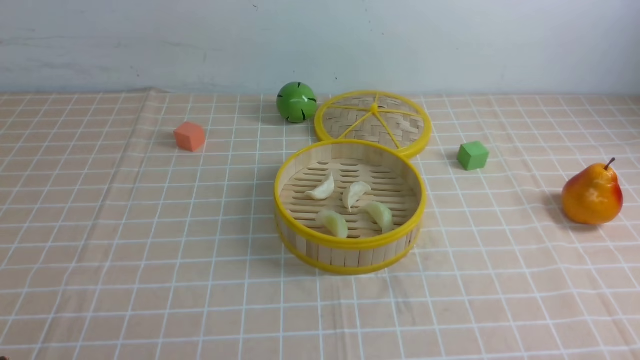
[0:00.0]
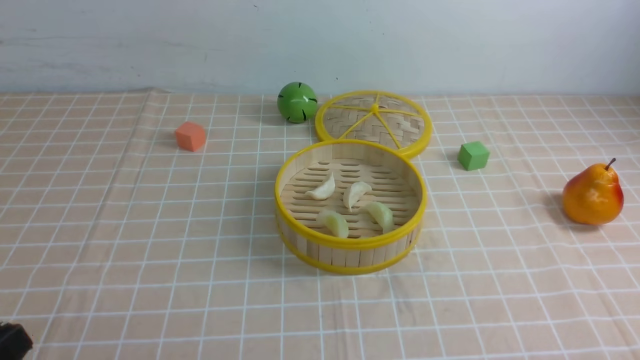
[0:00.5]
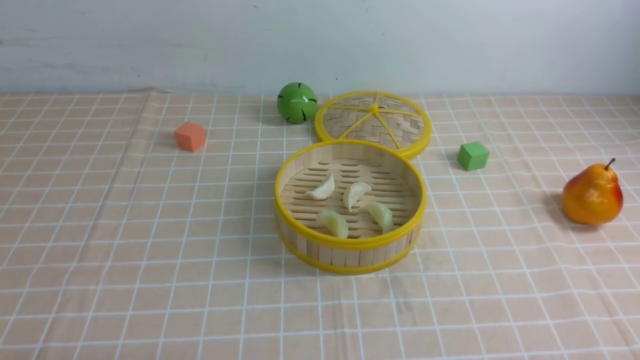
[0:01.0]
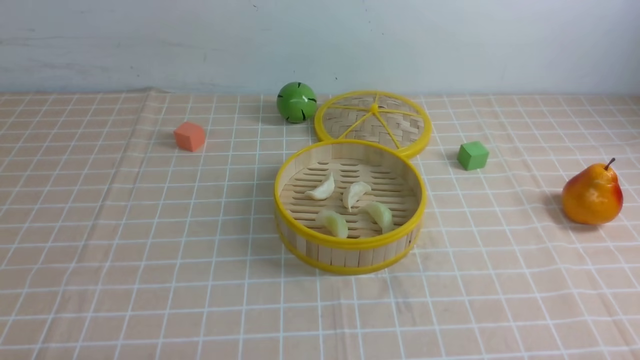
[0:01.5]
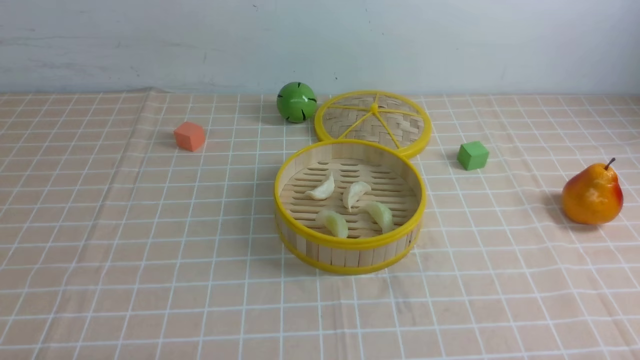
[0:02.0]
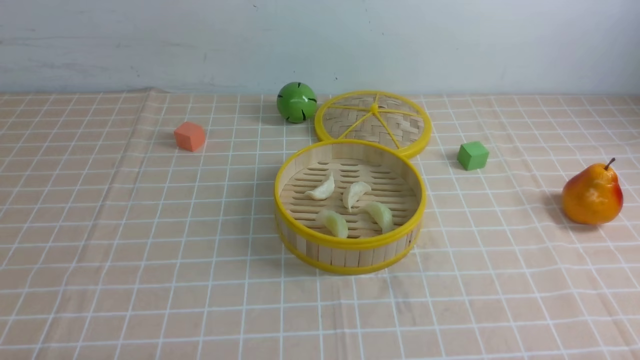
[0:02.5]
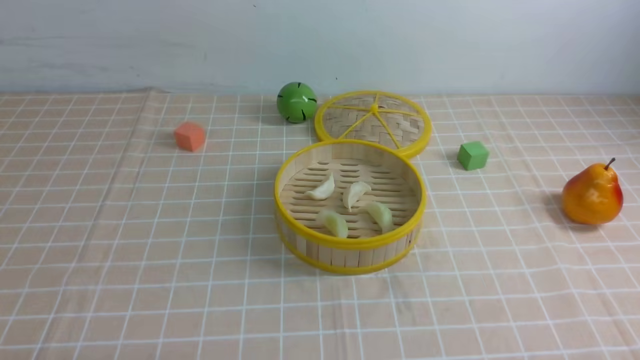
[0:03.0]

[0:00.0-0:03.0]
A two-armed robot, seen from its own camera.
Task of the whole recording: put the dumplings into the steamer on the table with the brown tablecloth.
0:01.5 to 0:03.0: Both grippers stay about where they are.

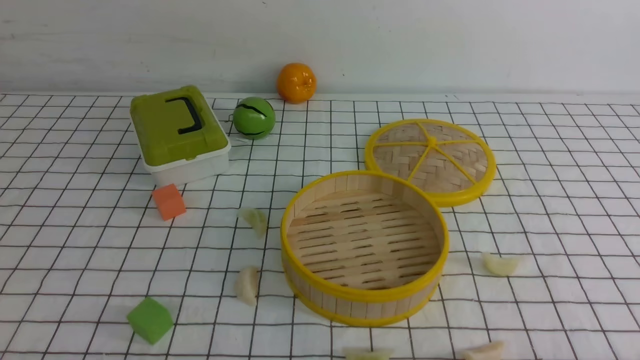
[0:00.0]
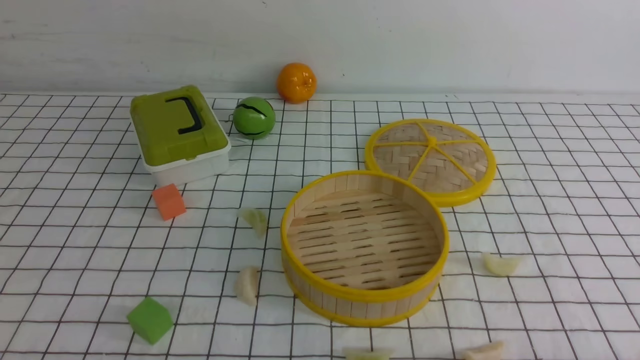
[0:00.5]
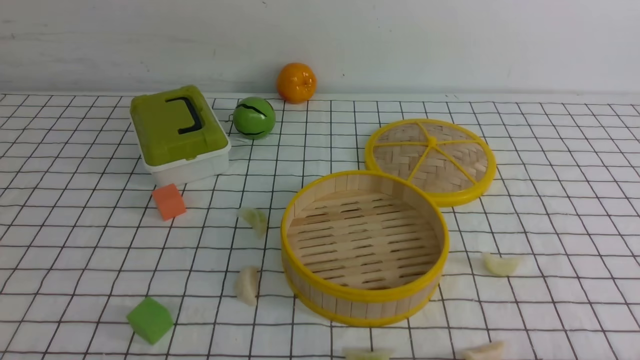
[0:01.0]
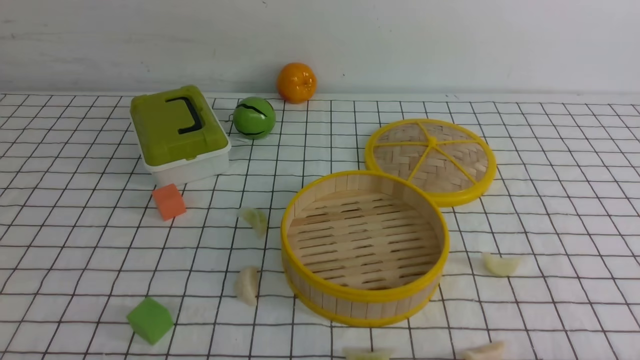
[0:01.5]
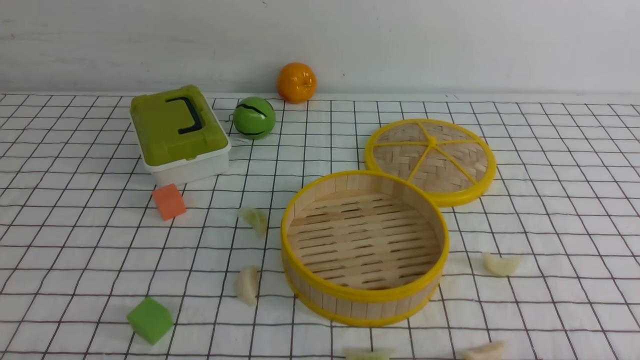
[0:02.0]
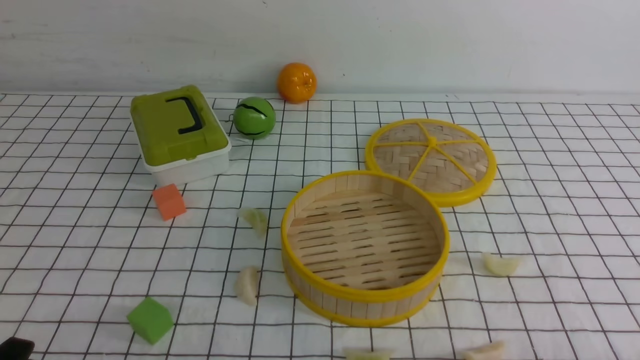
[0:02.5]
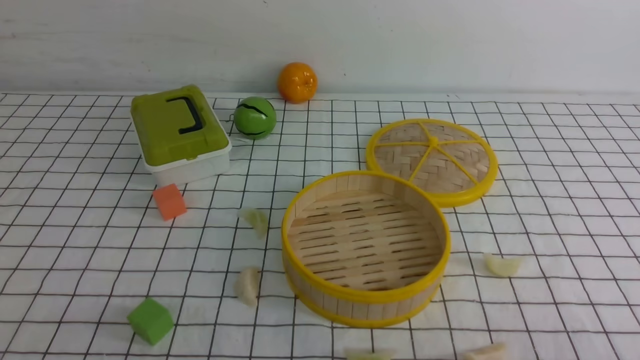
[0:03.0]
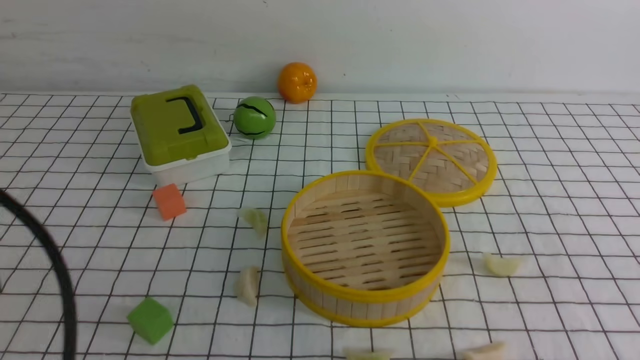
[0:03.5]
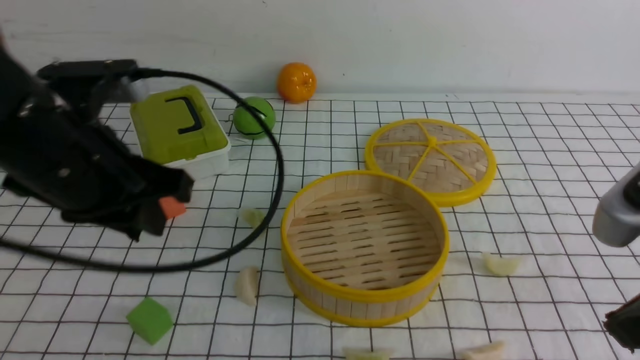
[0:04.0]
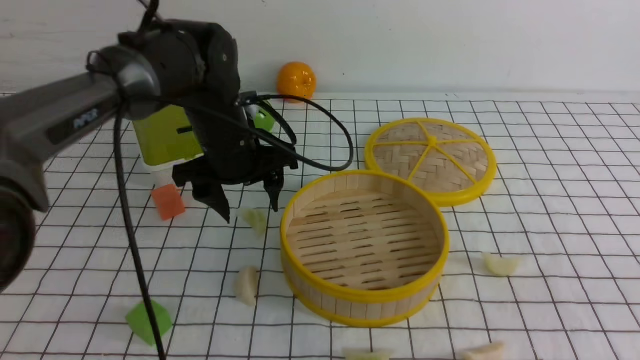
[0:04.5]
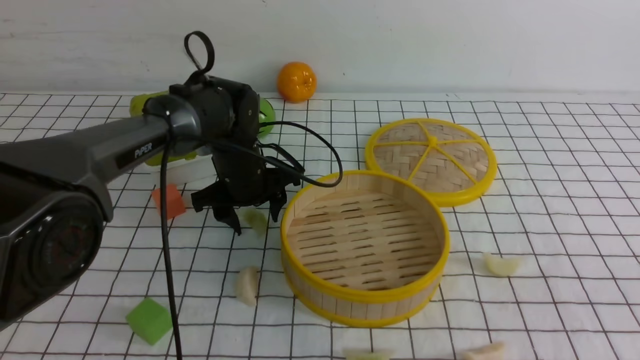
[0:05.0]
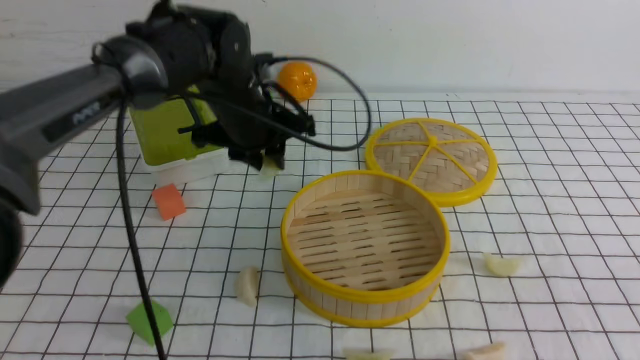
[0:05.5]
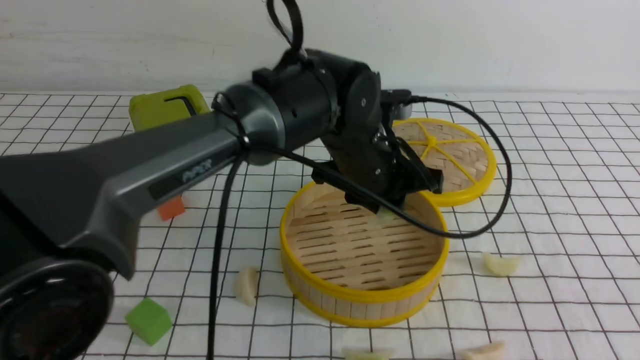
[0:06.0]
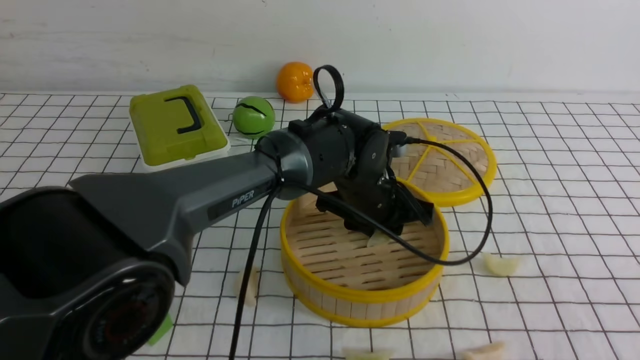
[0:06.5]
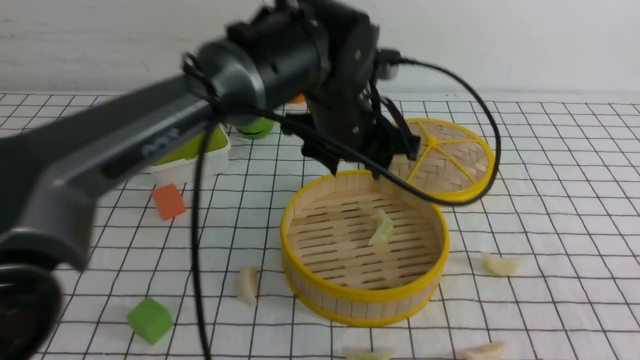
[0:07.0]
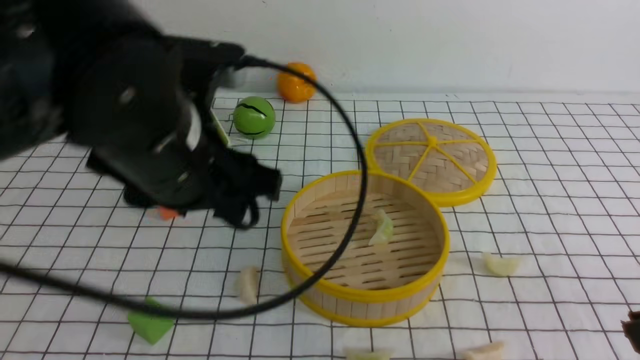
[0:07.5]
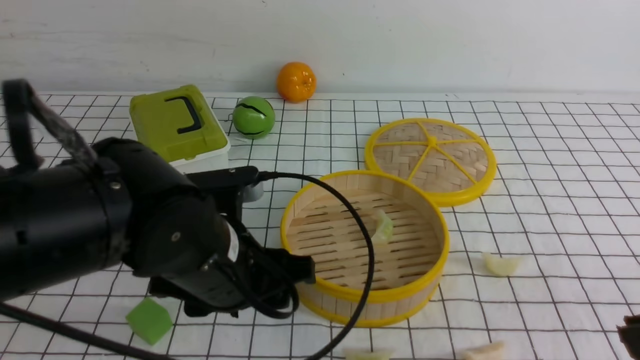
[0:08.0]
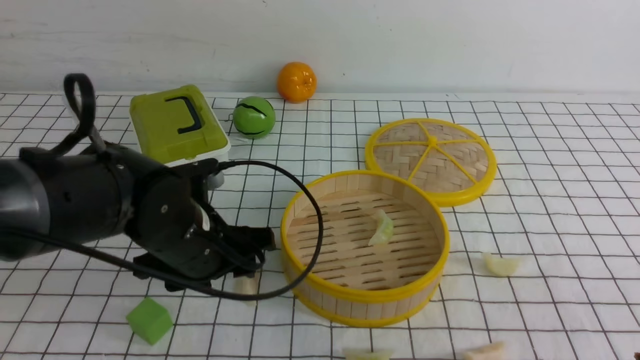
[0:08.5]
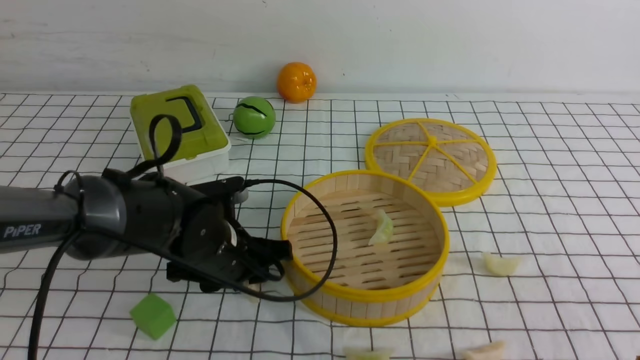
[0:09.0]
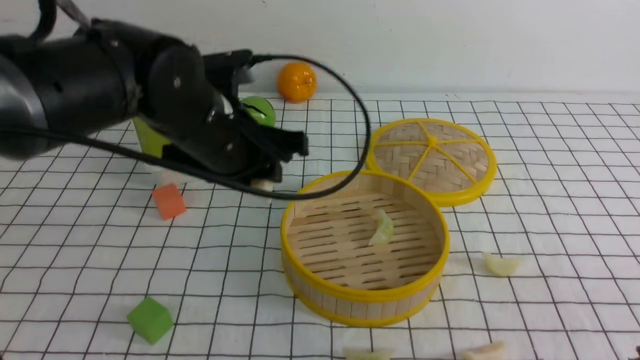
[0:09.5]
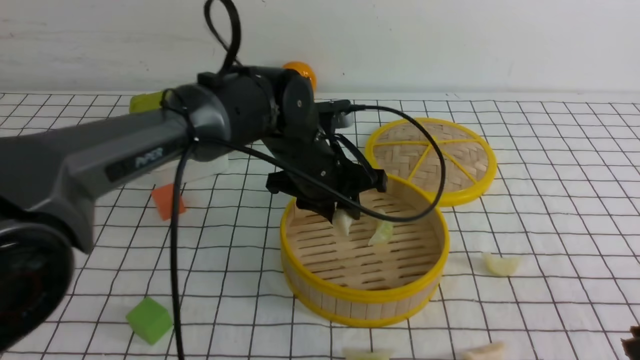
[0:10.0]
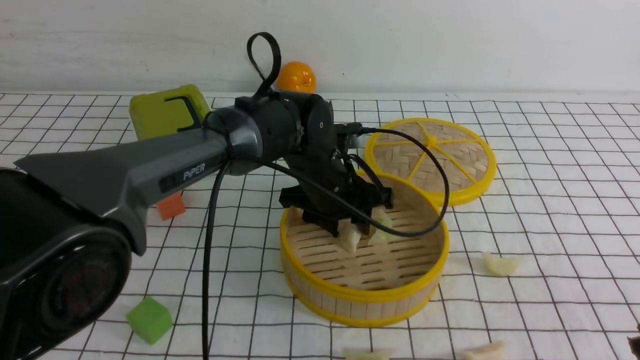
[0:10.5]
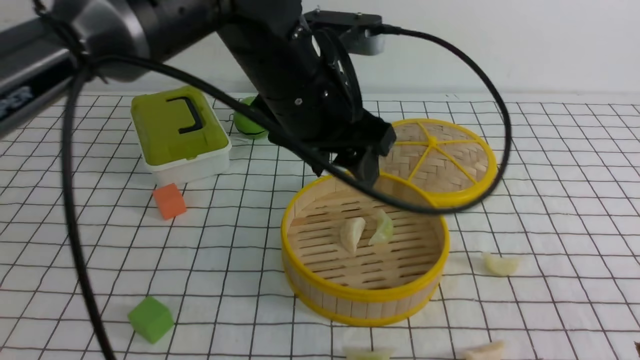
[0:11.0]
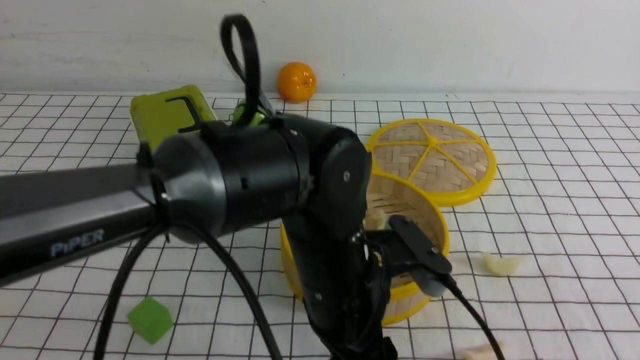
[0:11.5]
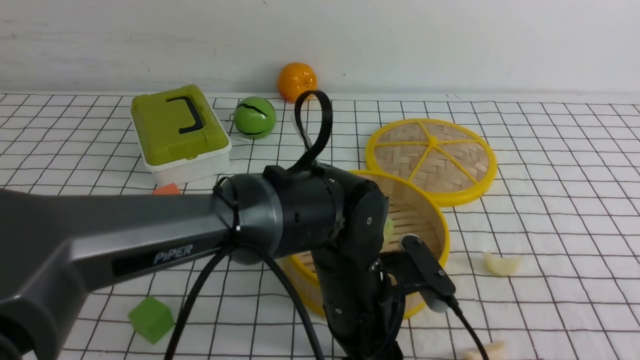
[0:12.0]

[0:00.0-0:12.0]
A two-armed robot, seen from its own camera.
Task of the whole recording: put the dumplings into the steamer on the table with the white tablecloth.
Step, 0:00.0 to 0:05.5: use the left arm to grab a dumpling.
Step, 0:06.0 to 0:06.5: use the left arm to put the dumpling into the steamer.
Step, 0:07.0 to 0:09.0: use the left arm to grab a dumpling.
Step, 0:10.0 to 0:10.5: use the left arm to put the dumpling into the steamer.
0:02.0 to 0:04.0: The left gripper goes about 25 cm upward, forward and to the right, while the right gripper heads upward, forward and to the left, covering some 20 cm, and closes.
0:04.0 to 0:06.0: The left gripper moves to the right and forward, roughly 25 cm, and opens and closes again. Meanwhile the right gripper shifts about 5 cm backward.
0:06.0 to 0:08.0: The left gripper goes up and down, some 15 cm each way, reversing 2 times, and opens up.
0:08.0 to 0:10.0: The left gripper heads forward and to the right, covering about 15 cm.
0:10.0 to 0:12.0: The left gripper is displaced backward, downward and to the right by roughly 15 cm.

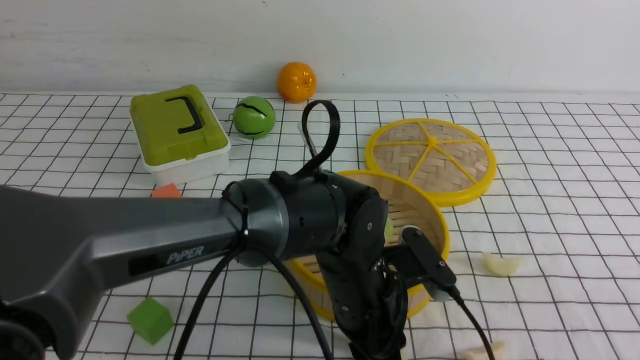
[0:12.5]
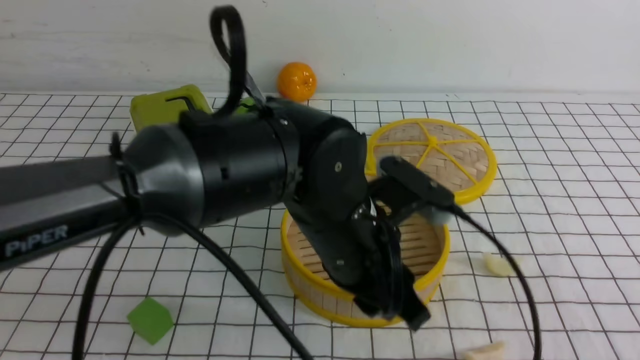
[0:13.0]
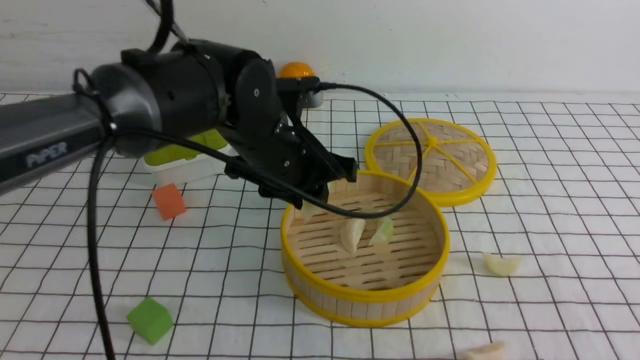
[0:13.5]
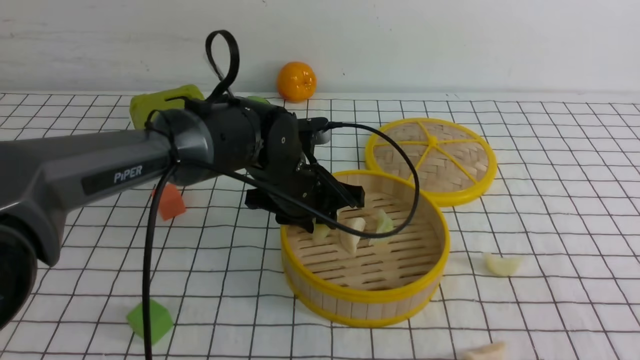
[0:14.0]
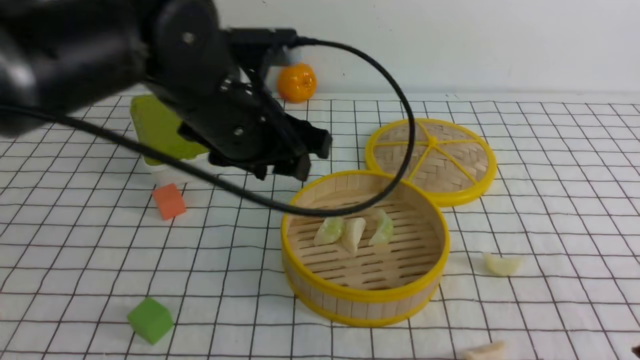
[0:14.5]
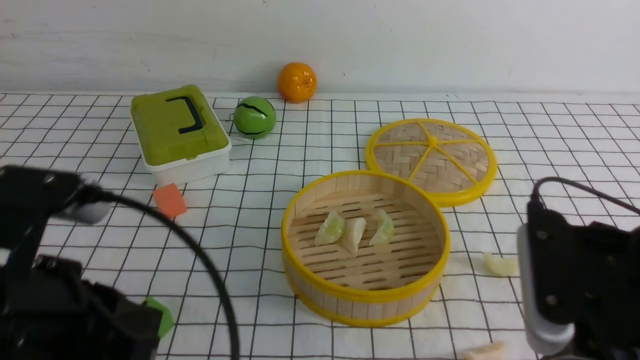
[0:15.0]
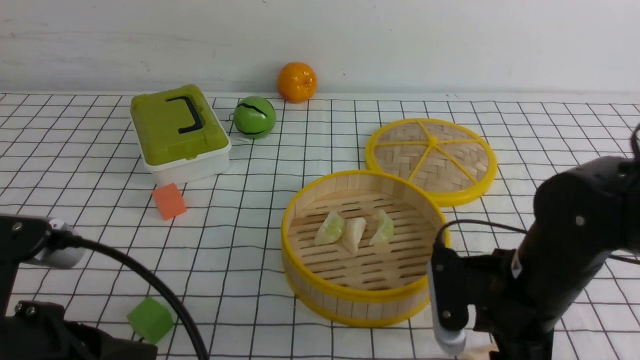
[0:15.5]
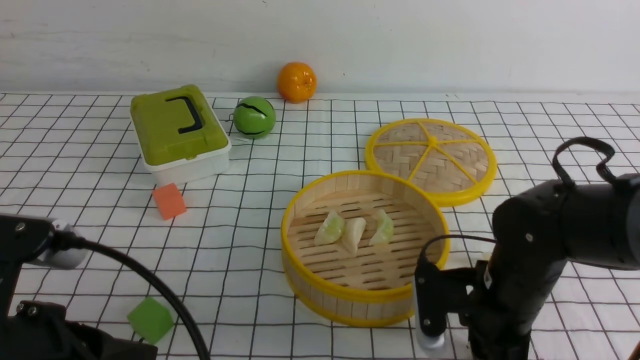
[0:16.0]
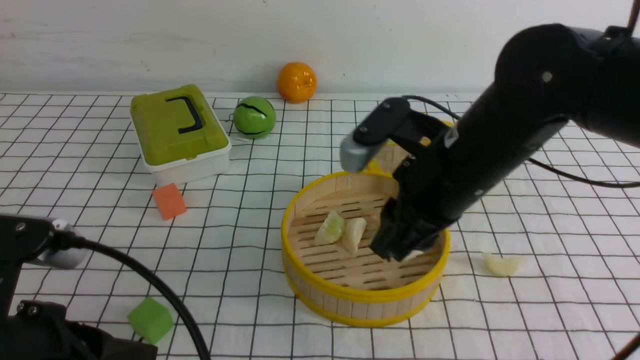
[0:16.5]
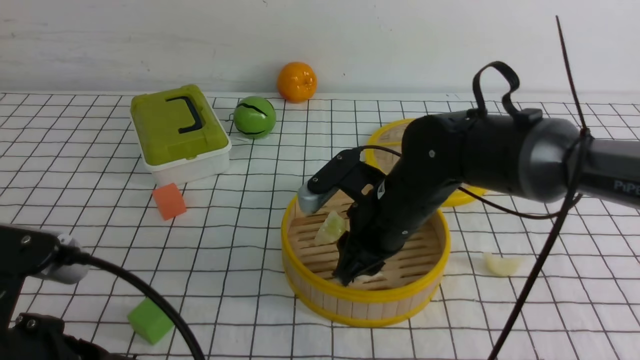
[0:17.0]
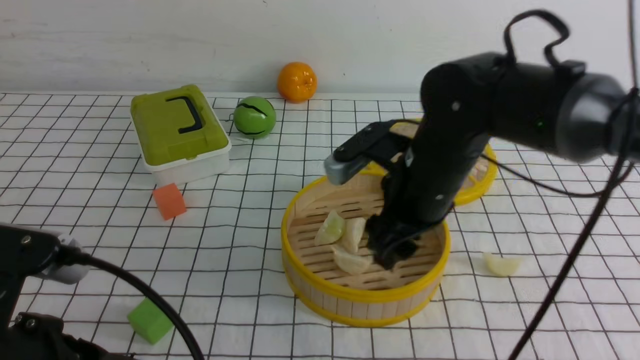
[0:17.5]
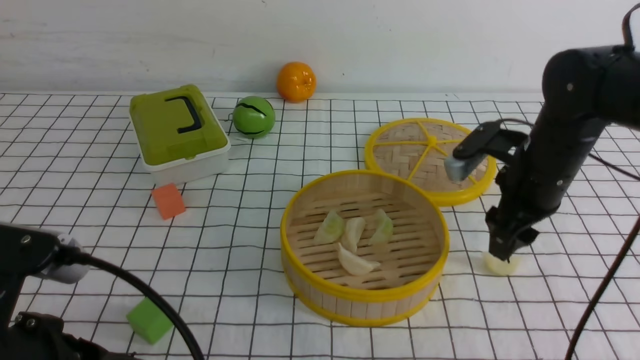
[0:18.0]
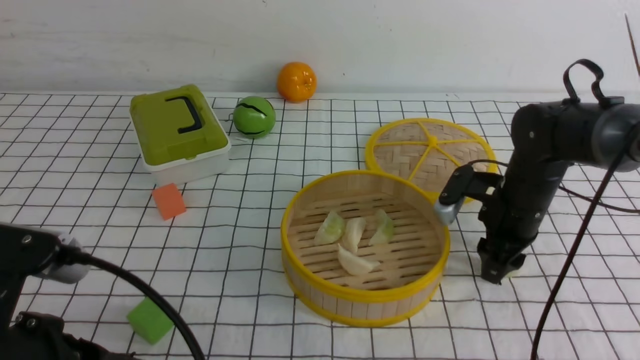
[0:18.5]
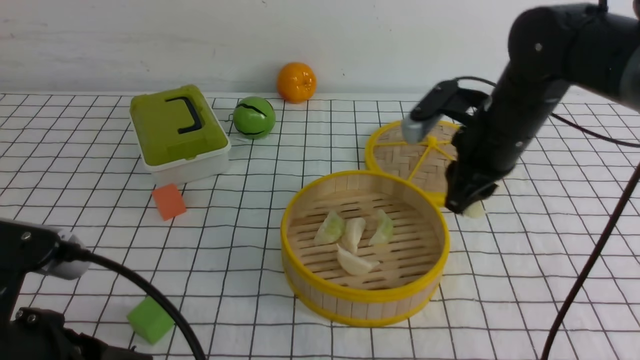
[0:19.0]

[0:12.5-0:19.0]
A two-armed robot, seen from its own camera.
Task of the whole recording: put the dumplings into the steamer on the table with the white tablecloth.
Step, 0:13.5 to 0:14.0: use the left arm to put the dumpling into the steamer.
Step, 0:14.5 to 0:16.5: use the right arm to grab a dumpling.
Step, 0:18.0 to 0:19.0: use the right arm to grab a dumpling.
0:12.5 to 0:14.5: The left gripper swings up and down, roughly 15 cm each way, with 2 reversals, while the right gripper changes place by about 5 cm.
0:14.5 to 0:17.0: The right gripper heads forward, to the left and downward, covering roughly 30 cm, and opens, then closes again. The left gripper heads backward and to the left, covering approximately 25 cm, and closes its fingers.
0:17.0 to 0:19.0: The right gripper shifts approximately 10 cm to the right and forward, and opens and closes again.
